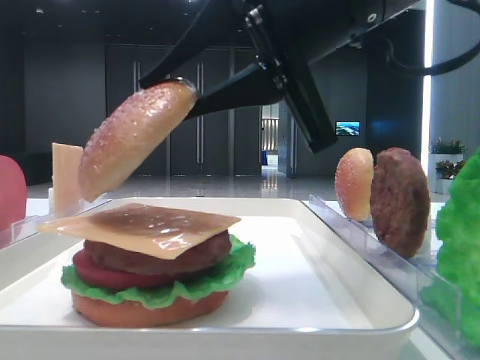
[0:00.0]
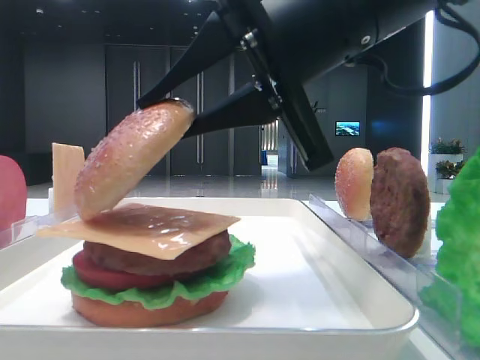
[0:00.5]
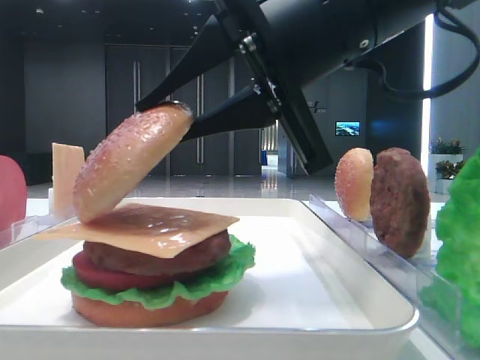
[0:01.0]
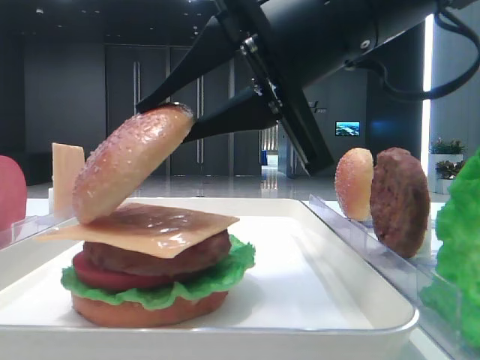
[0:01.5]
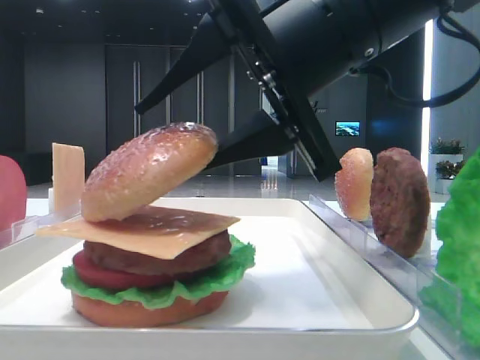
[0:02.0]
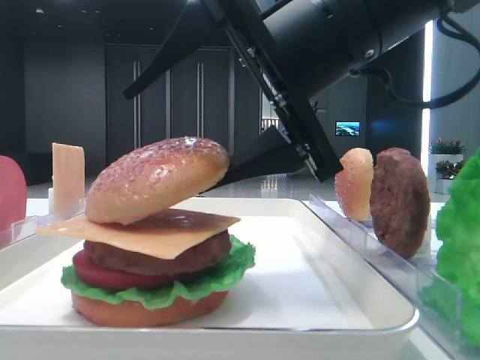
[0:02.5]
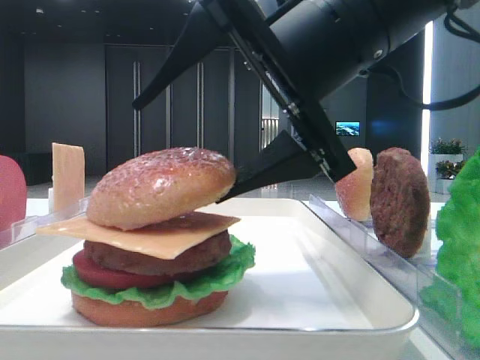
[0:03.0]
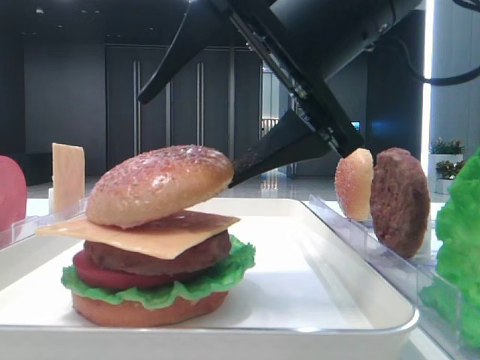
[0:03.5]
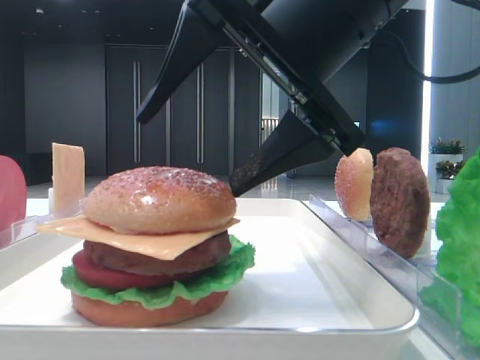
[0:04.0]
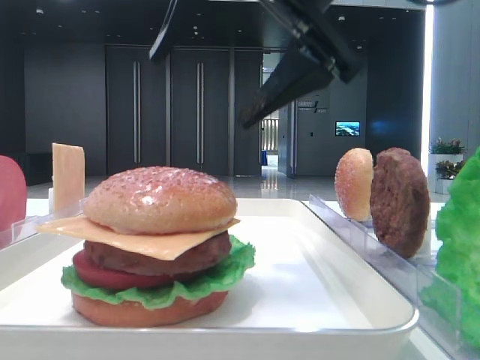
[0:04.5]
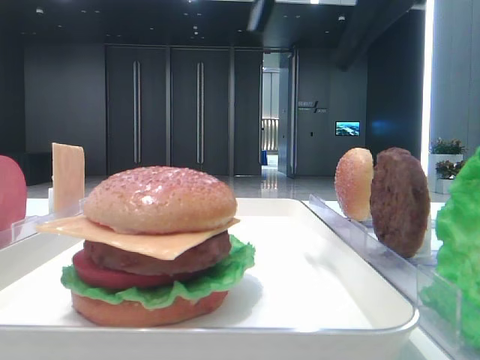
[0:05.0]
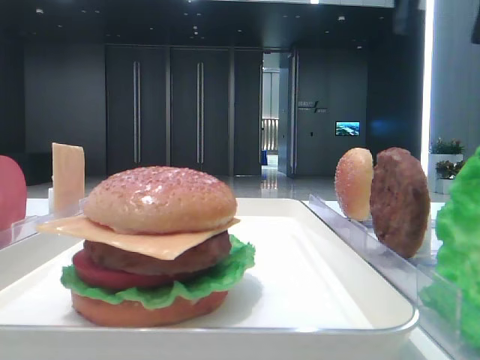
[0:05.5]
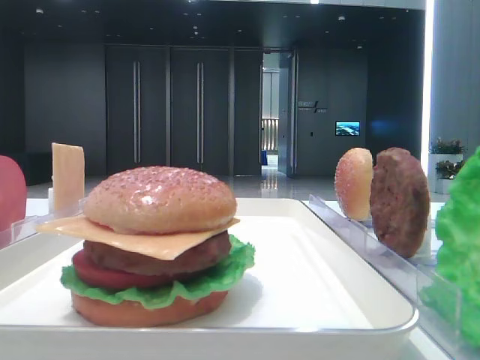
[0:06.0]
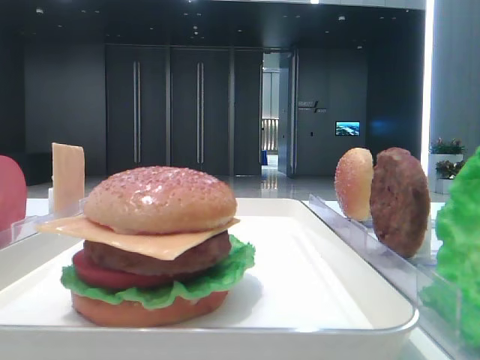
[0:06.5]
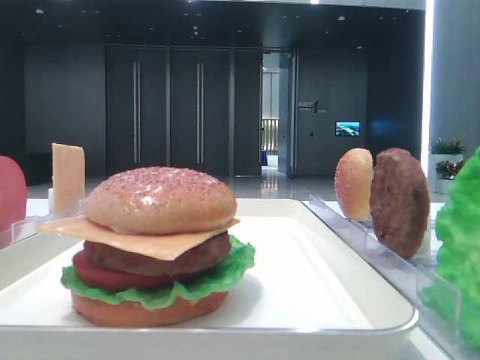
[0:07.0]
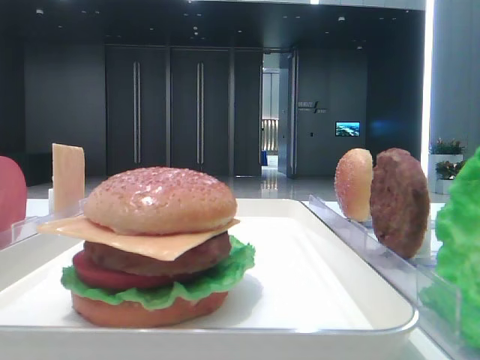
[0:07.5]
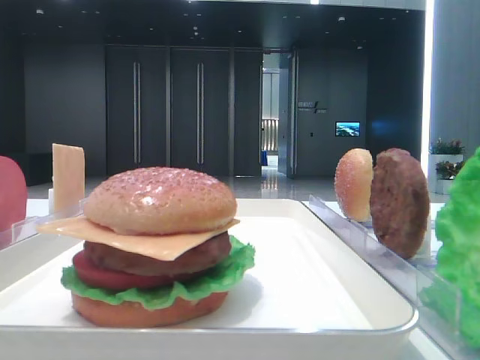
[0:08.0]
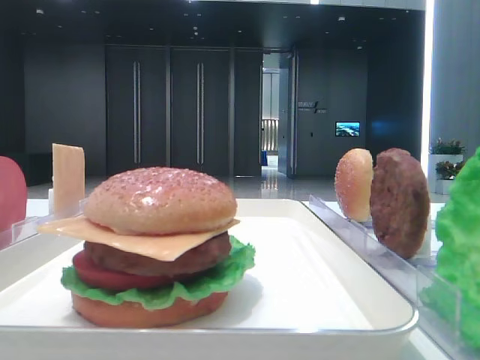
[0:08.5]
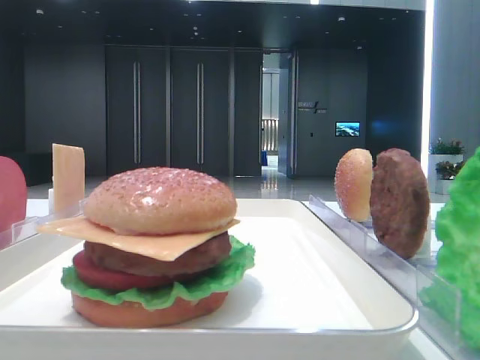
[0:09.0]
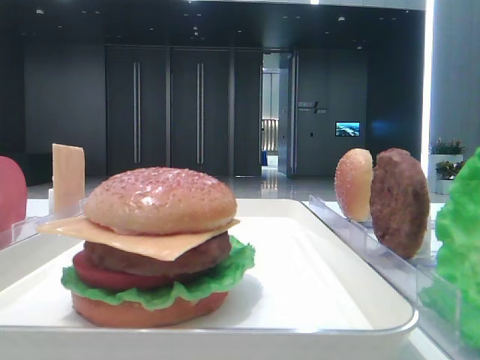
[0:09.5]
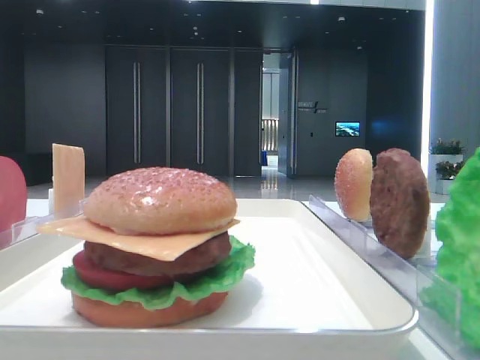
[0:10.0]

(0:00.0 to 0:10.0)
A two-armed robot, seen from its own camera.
Step, 0:00.0 - 0:03.5: Place the top bread slice on the cheese with the right hand.
0:00.0 - 0:02.0: The right gripper opens its fingers.
0:02.0 - 0:04.0: The right gripper opens its fingers.
0:04.0 - 0:06.0: The right gripper heads to the right, upward and forward, covering approximately 30 cm.

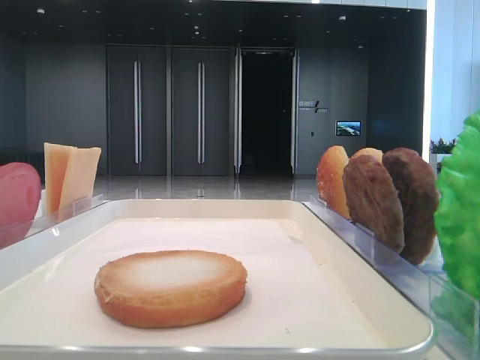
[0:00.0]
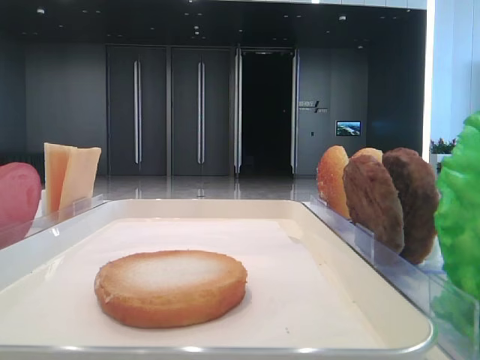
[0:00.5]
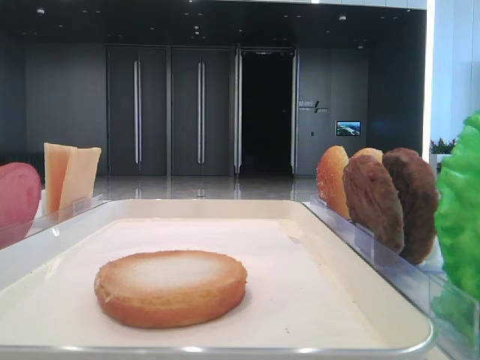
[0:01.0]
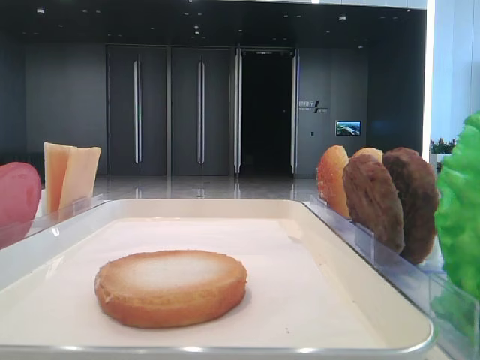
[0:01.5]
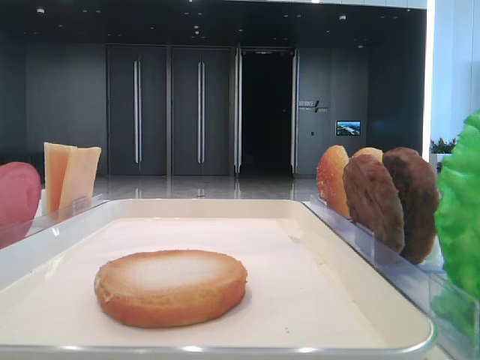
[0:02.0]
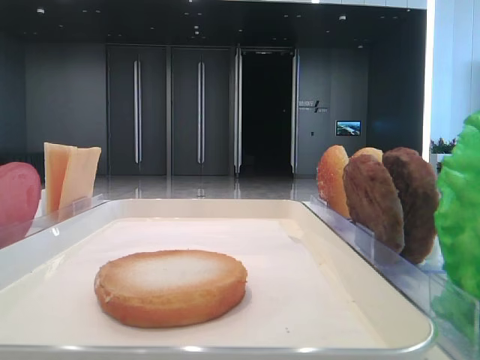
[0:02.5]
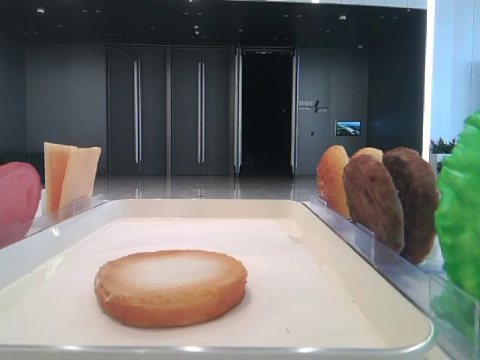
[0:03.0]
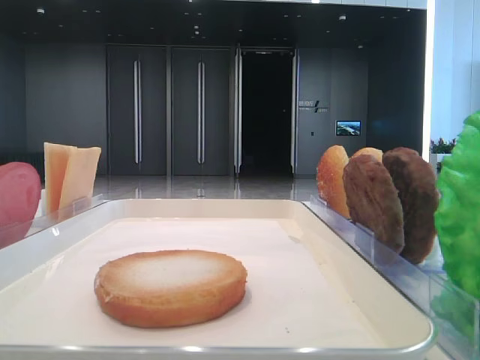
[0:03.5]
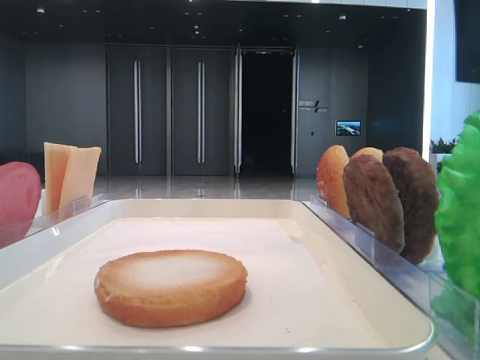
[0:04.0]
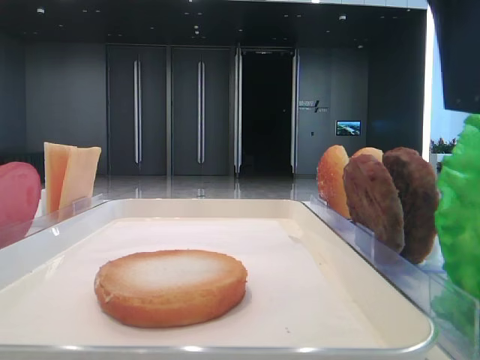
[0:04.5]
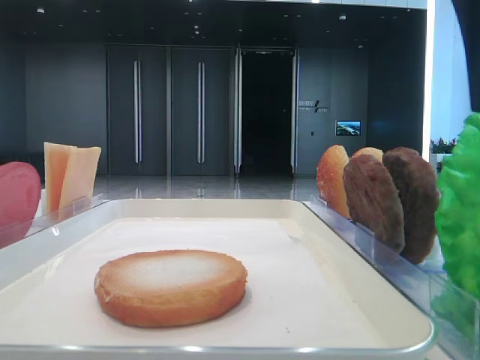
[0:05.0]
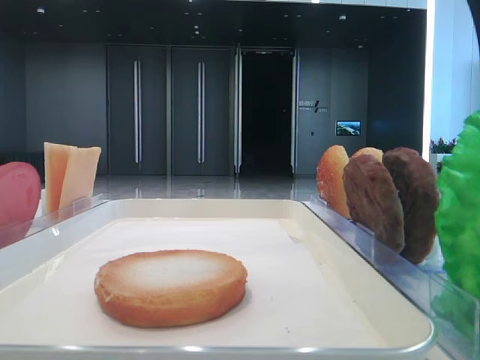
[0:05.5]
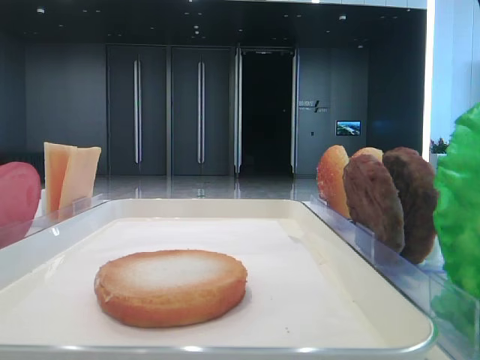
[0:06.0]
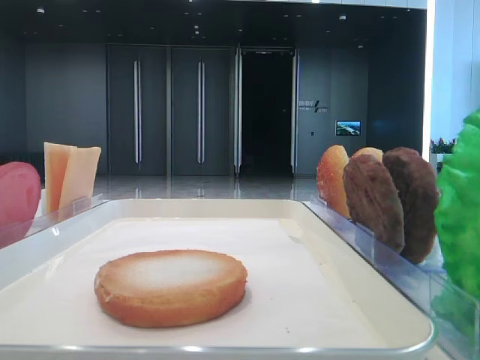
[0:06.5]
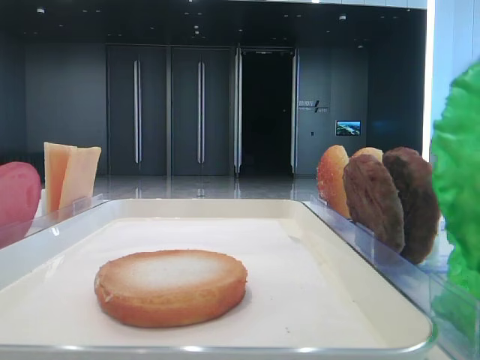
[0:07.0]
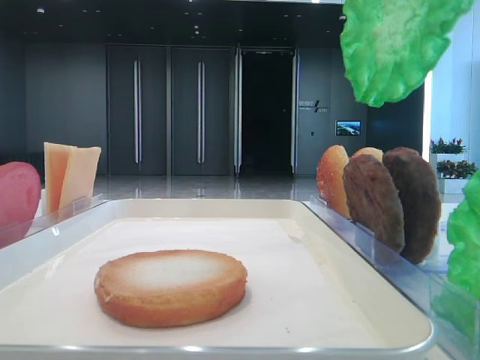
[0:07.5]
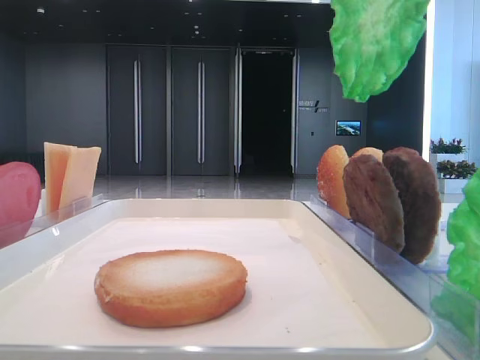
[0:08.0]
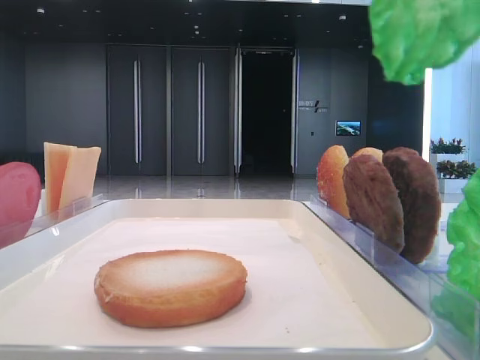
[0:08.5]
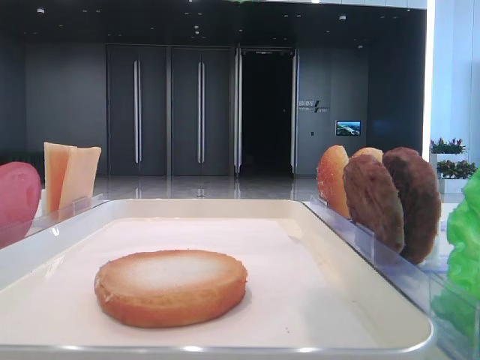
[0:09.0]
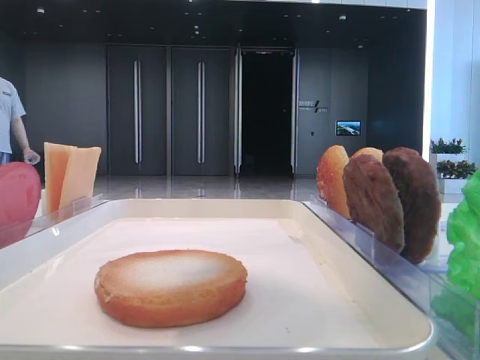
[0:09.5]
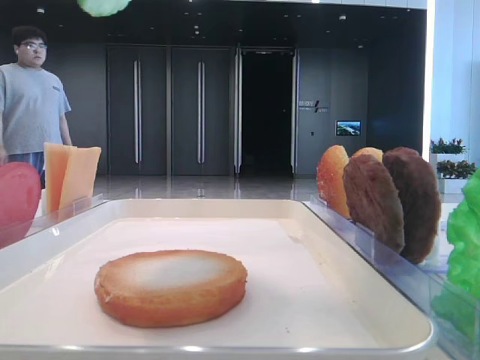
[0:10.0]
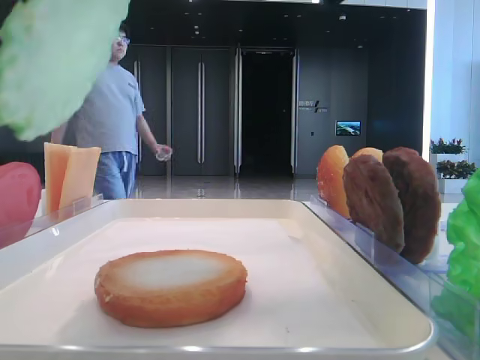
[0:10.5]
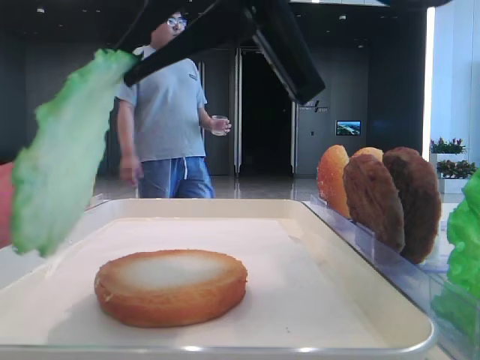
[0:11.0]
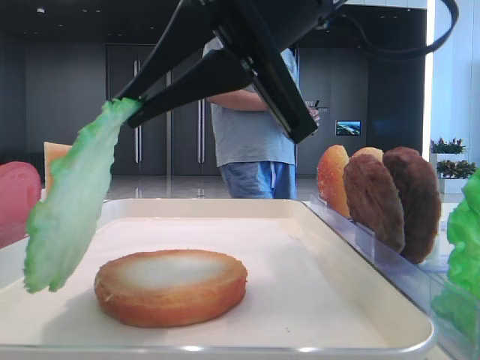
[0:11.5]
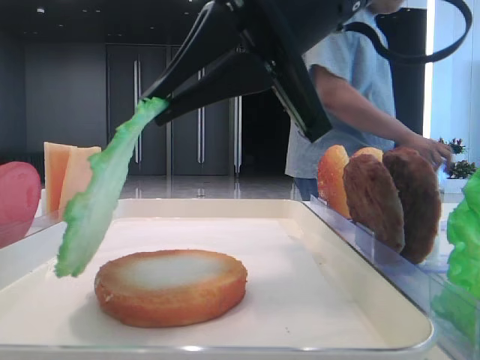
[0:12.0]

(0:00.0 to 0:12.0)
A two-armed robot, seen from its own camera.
Step, 0:00.0 - 0:05.0: Grab the lettuce leaf with the right hand.
0:02.0 - 0:04.0: The right gripper heads to the left, covering some 15 cm.
0:04.0 - 0:06.0: The right gripper closes its fingers.
0:06.0 - 0:08.0: The right gripper goes about 10 cm upward.
0:08.0 - 0:10.0: The right gripper goes about 5 cm to the left.
0:10.0 - 0:12.0: The right gripper heads downward and forward, covering about 15 cm.

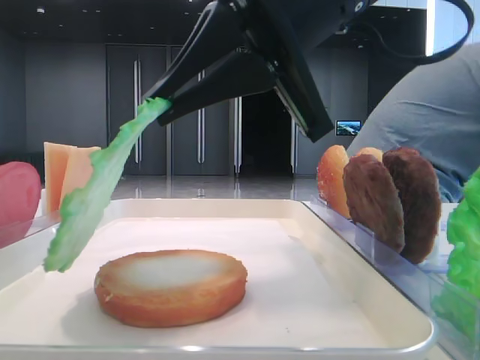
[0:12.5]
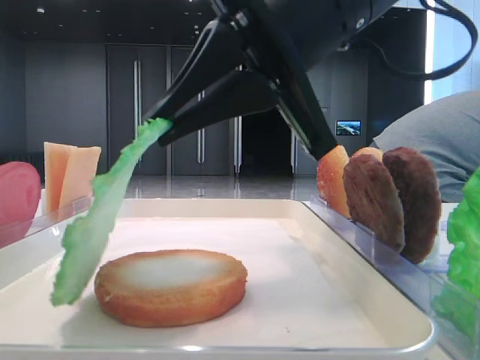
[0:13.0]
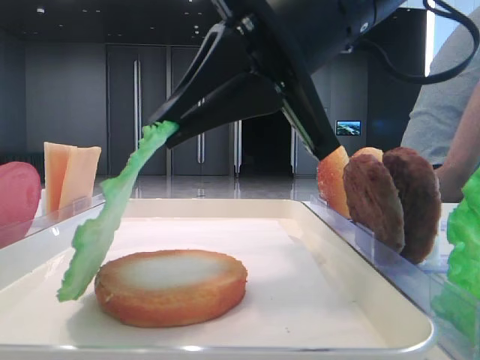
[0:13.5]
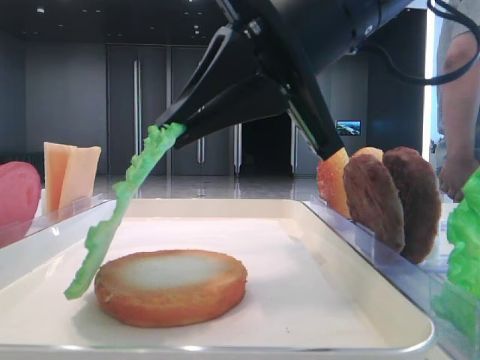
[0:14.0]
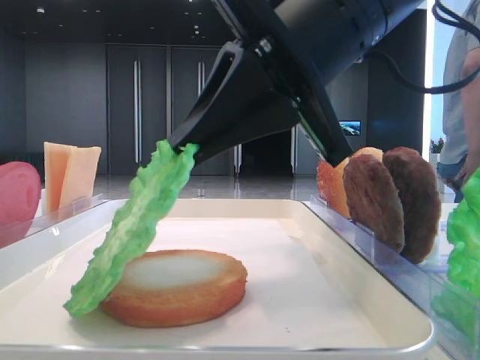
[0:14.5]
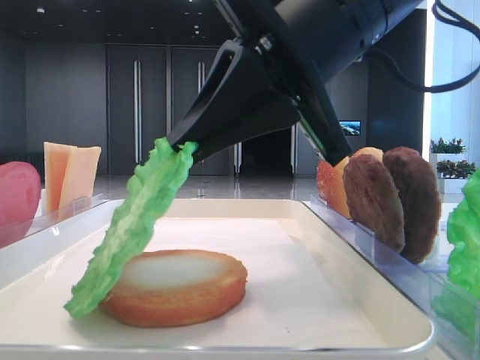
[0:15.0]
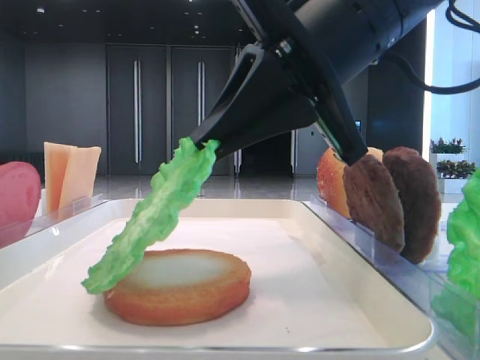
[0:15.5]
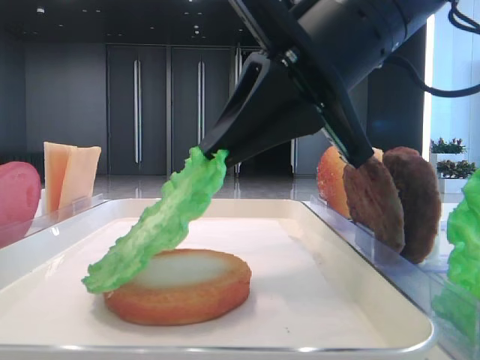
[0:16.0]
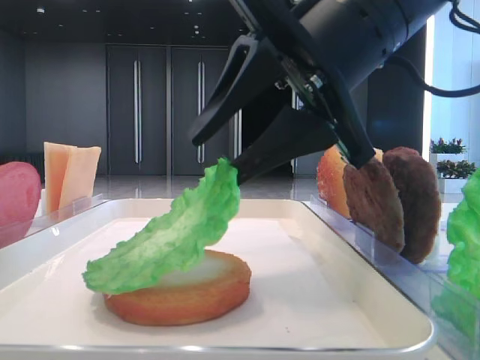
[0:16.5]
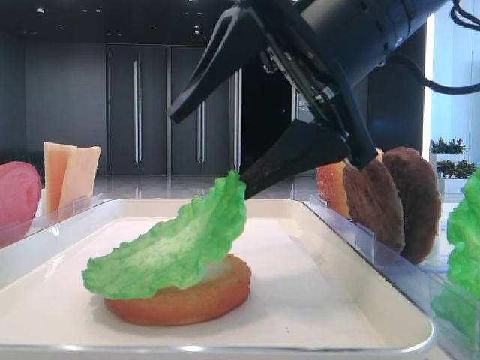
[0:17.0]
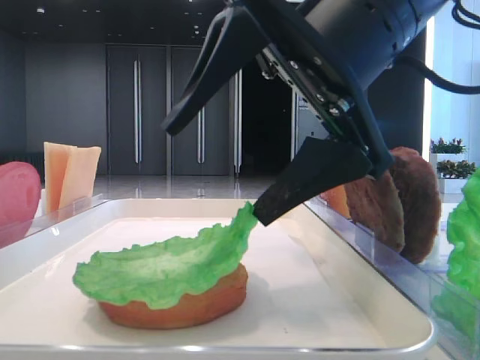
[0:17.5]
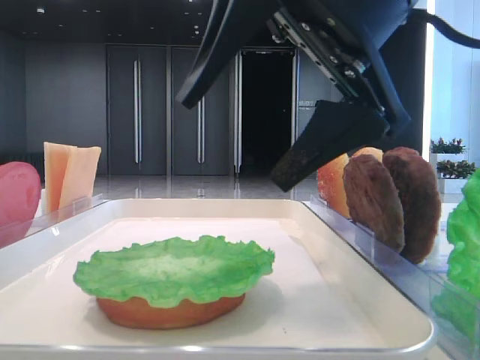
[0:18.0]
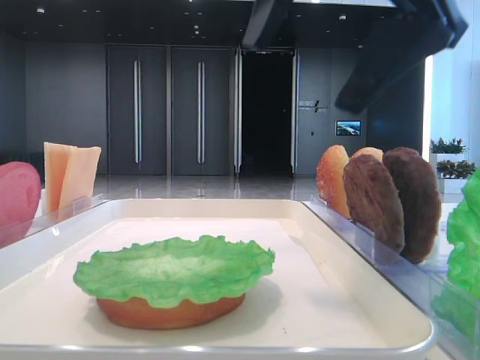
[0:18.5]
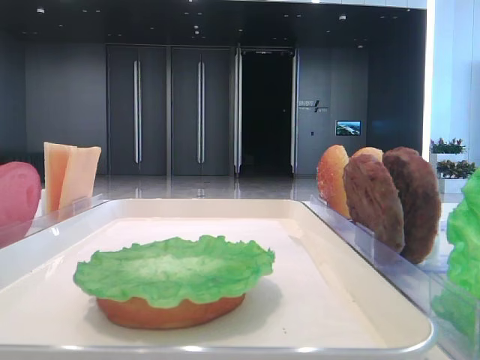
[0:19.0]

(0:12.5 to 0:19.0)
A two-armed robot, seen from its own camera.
Step, 0:12.5 - 0:17.5: Place the lettuce leaf on the bottom bread with the right hand.
0:14.5 - 0:17.0: The right gripper opens its fingers.
0:17.0 - 0:19.0: The right gripper shifts roughly 20 cm upward and to the right.
